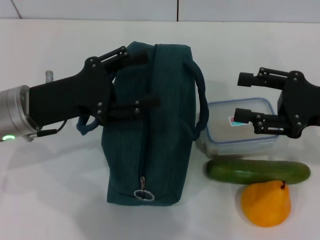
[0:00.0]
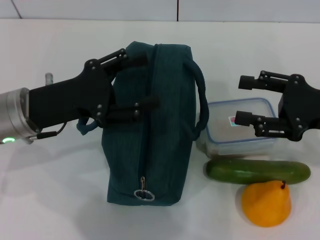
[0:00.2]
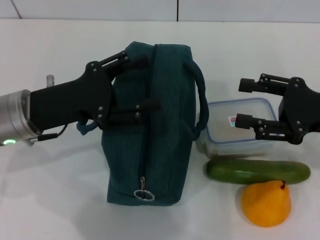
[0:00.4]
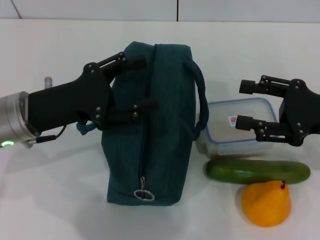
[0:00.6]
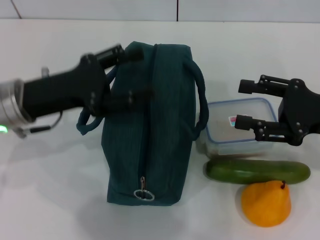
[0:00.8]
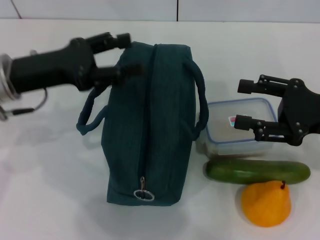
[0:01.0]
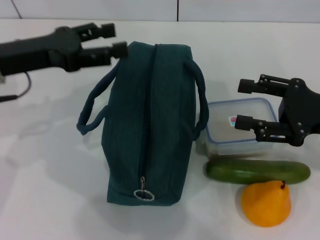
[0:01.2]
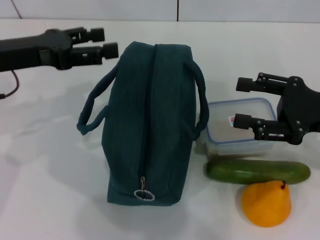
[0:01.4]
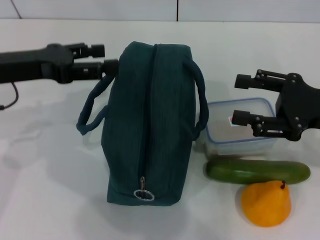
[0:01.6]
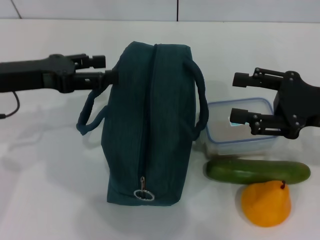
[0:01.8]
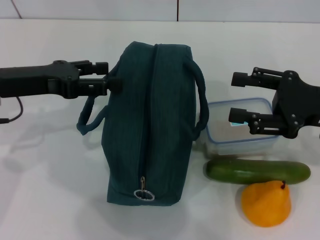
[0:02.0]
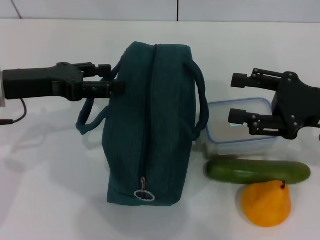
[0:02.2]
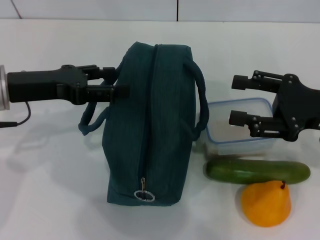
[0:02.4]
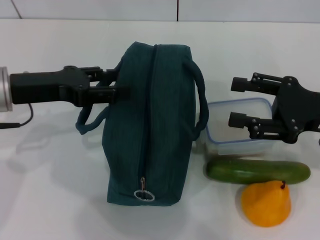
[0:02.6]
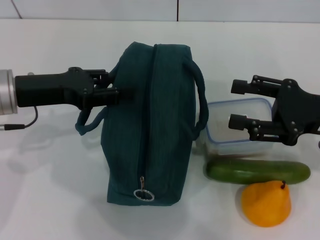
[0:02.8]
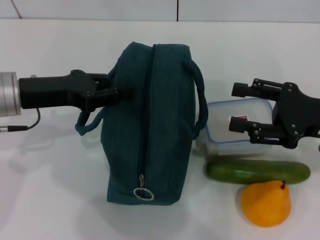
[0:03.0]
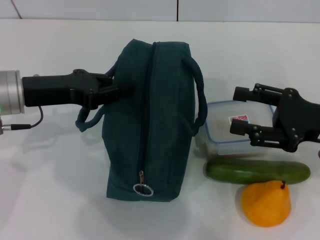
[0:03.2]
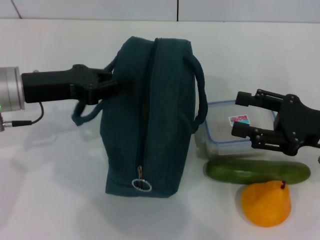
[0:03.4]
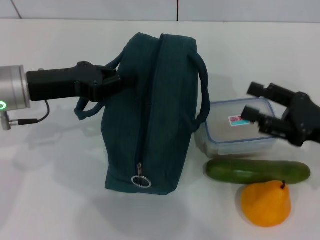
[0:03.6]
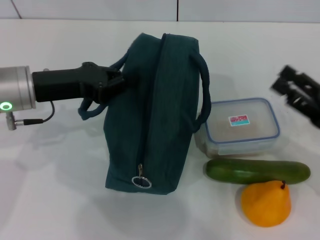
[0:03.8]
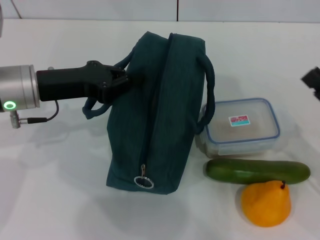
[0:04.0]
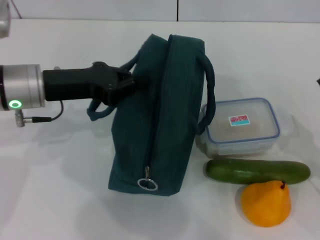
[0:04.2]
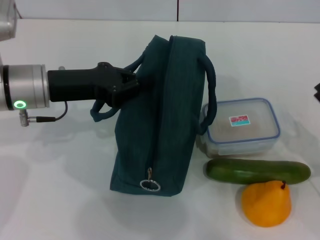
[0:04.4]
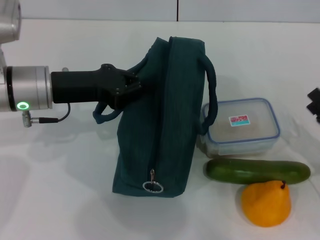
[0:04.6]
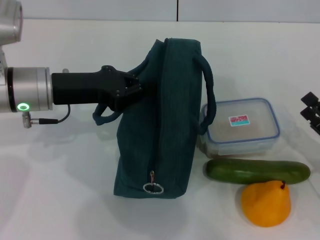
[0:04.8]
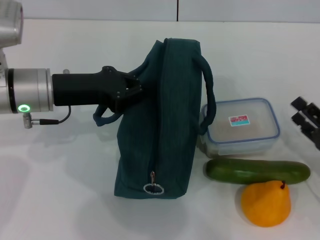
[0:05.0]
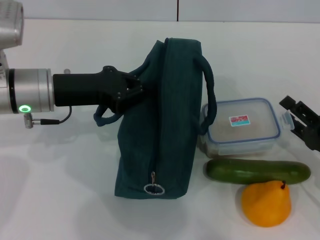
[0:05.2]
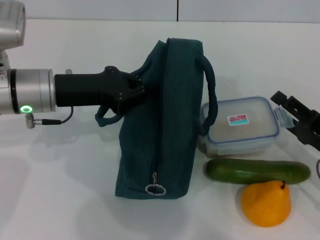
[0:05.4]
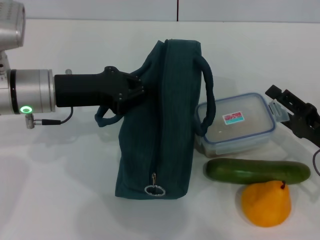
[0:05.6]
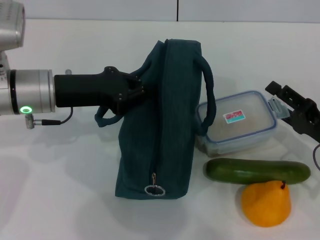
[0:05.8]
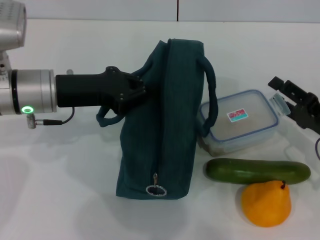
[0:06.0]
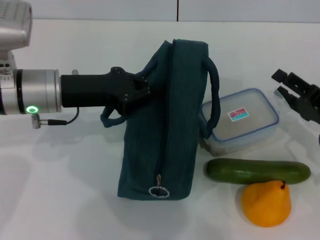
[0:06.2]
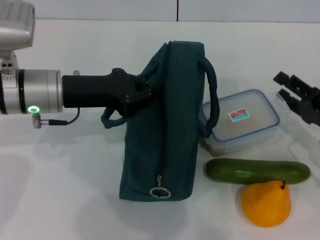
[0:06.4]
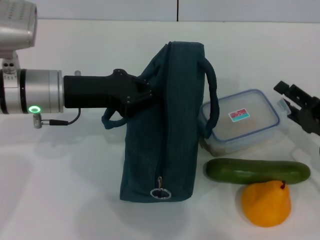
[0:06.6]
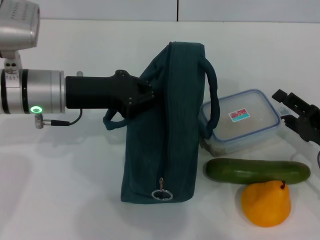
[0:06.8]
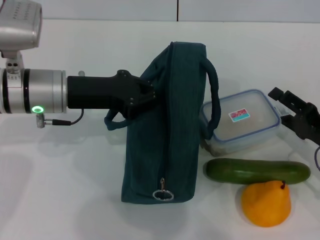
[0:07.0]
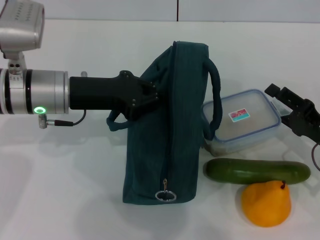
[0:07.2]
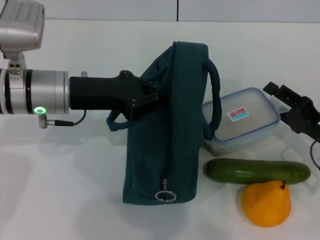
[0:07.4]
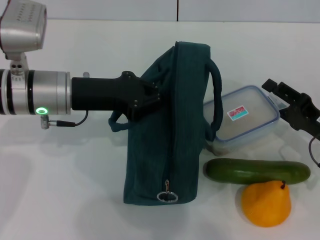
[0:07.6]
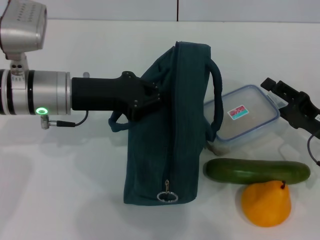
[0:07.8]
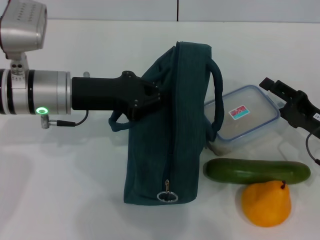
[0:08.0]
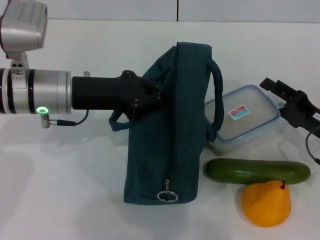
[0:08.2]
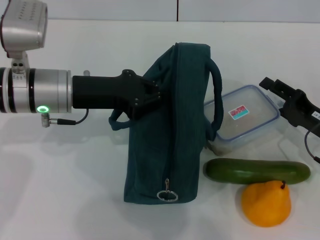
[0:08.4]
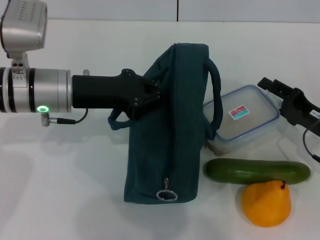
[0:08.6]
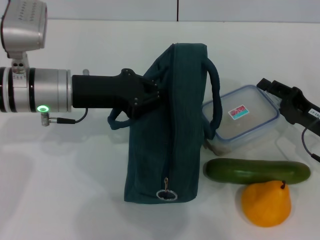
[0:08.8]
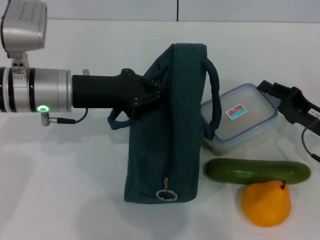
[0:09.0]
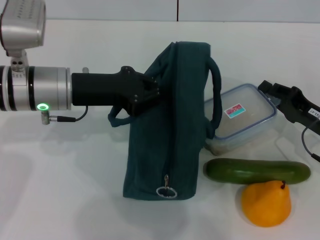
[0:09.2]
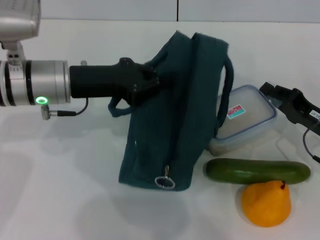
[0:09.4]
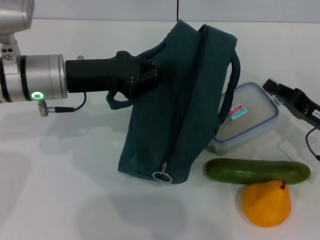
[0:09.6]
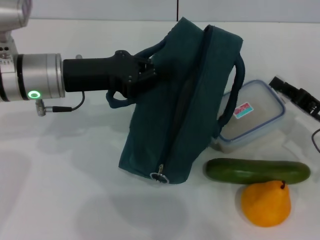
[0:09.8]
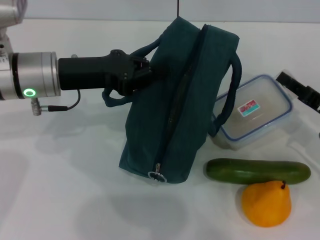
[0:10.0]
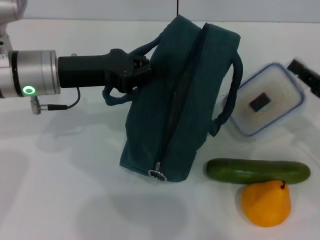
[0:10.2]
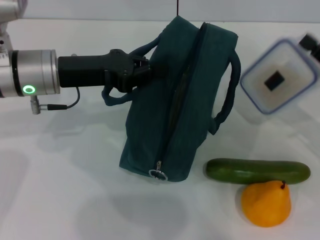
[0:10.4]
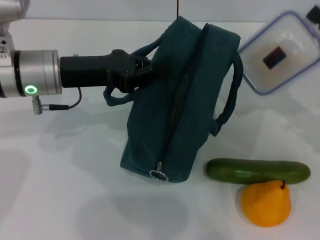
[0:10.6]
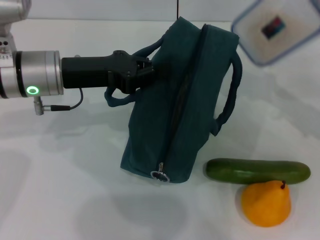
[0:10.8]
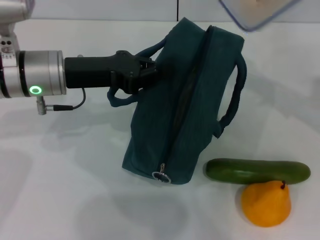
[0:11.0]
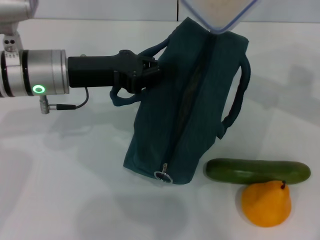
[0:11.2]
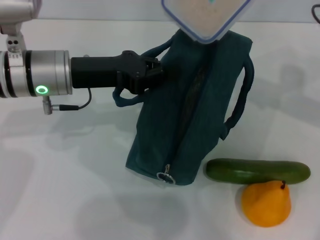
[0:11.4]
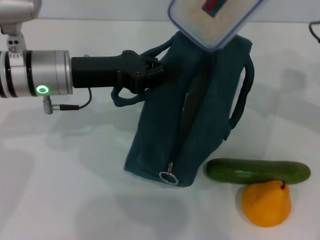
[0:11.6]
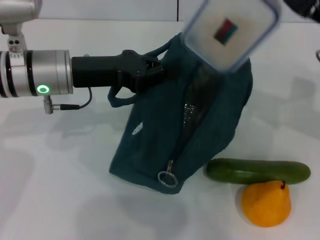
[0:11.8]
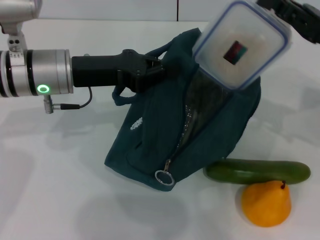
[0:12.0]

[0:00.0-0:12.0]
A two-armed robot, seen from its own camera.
Step, 0:00.0 to 0:04.6: Hold the lunch bag with your left hand.
Step, 0:04.8 to 0:09.8: Pick up the lunch box with your right hand.
0:00.0 to 0:01.6: The left gripper is displaced to the left by approximately 5 cm.
0:01.6 to 0:03.0: The grippers stay close to where they were, moving slightly.
0:03.0 to 0:04.4: The left gripper closes. The right gripper is displaced downward, backward and to the right by about 10 cm.
0:04.4 to 0:06.0: The right gripper travels forward by some 5 cm.
0:06.0 to 0:09.0: The grippers make only small movements.
0:09.0 to 0:10.4: The right gripper goes about 5 cm upward, and closes up.
0:10.4 to 0:12.0: The right gripper moves upward, roughly 5 cm.

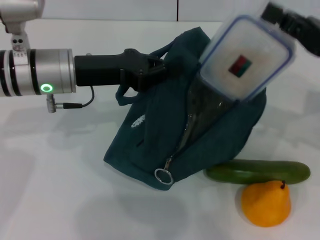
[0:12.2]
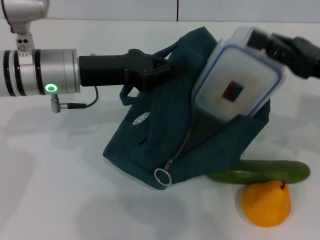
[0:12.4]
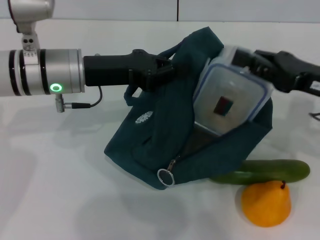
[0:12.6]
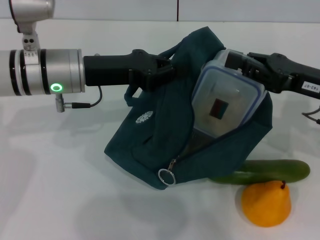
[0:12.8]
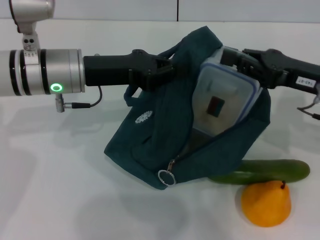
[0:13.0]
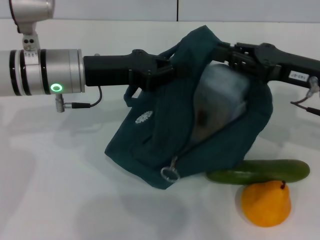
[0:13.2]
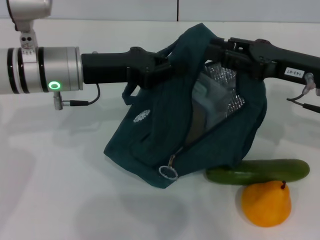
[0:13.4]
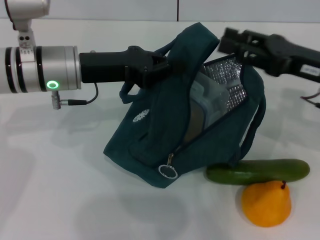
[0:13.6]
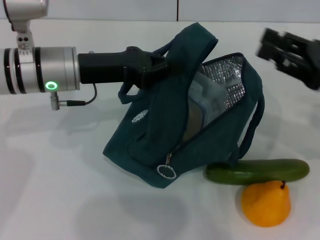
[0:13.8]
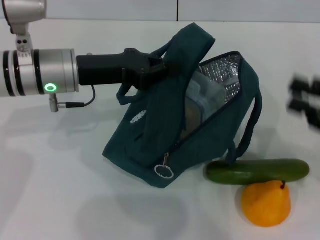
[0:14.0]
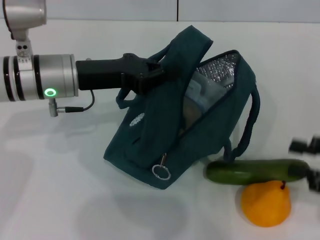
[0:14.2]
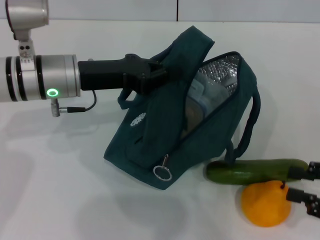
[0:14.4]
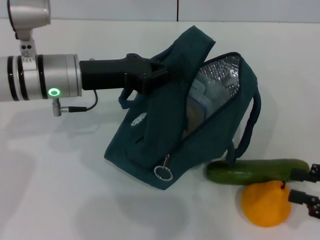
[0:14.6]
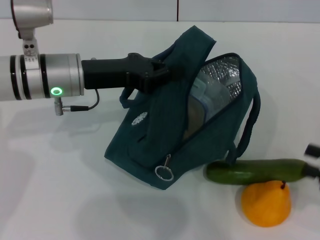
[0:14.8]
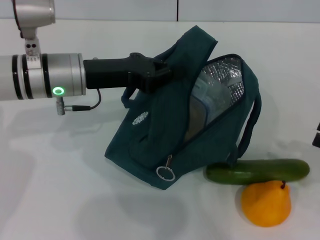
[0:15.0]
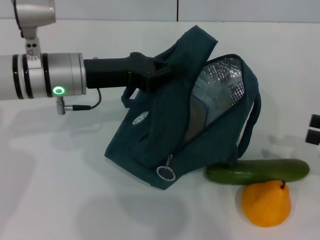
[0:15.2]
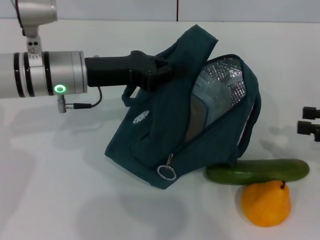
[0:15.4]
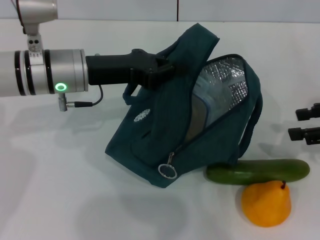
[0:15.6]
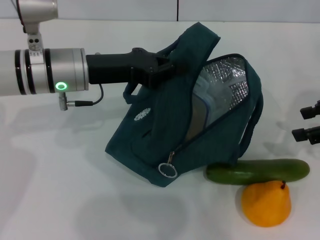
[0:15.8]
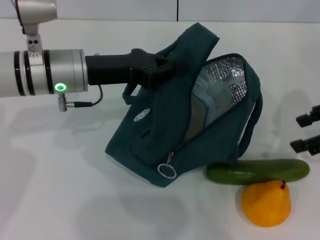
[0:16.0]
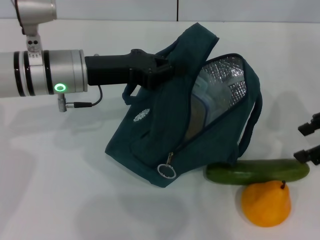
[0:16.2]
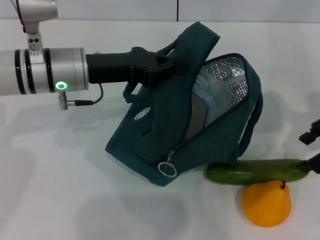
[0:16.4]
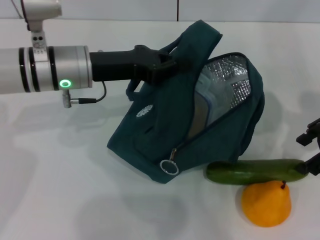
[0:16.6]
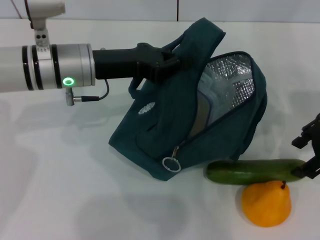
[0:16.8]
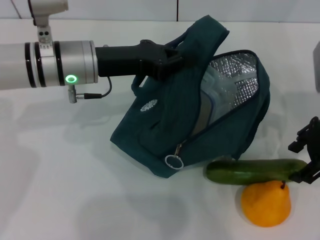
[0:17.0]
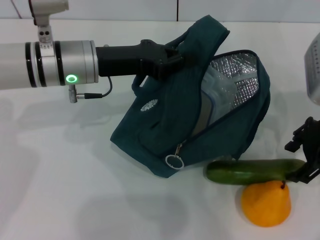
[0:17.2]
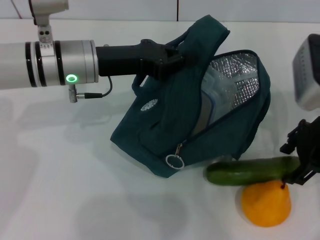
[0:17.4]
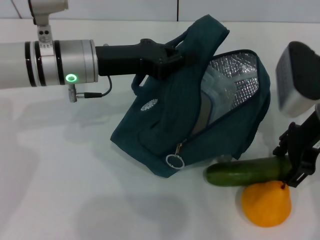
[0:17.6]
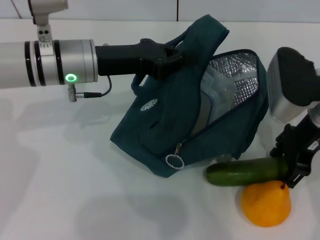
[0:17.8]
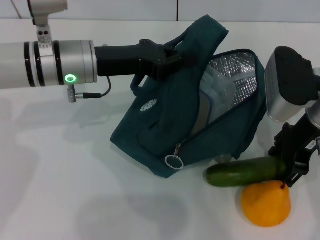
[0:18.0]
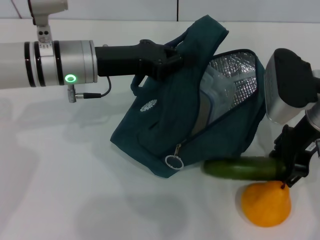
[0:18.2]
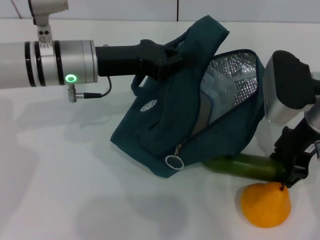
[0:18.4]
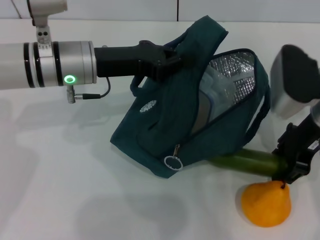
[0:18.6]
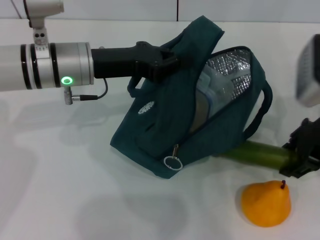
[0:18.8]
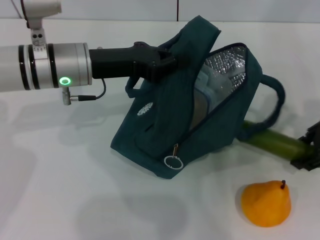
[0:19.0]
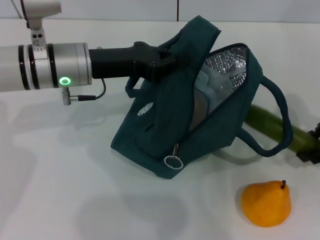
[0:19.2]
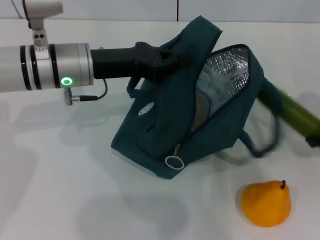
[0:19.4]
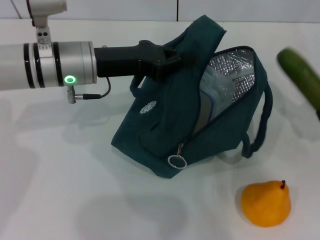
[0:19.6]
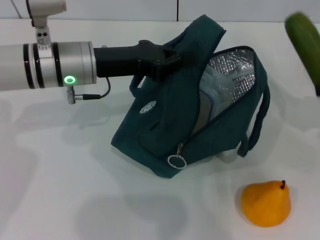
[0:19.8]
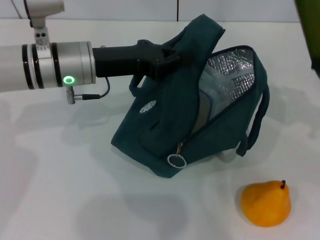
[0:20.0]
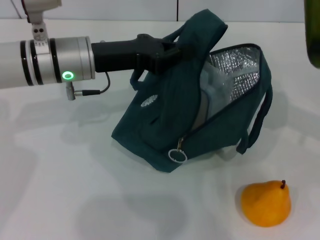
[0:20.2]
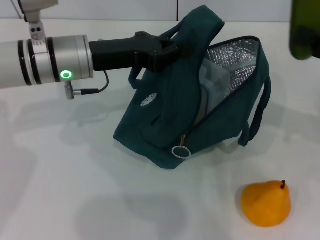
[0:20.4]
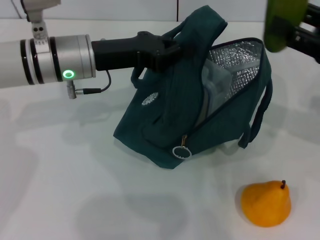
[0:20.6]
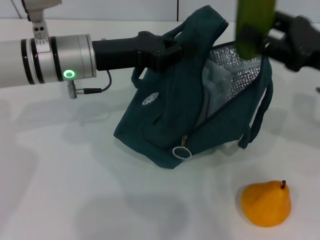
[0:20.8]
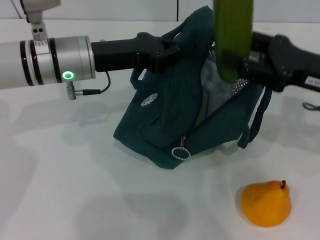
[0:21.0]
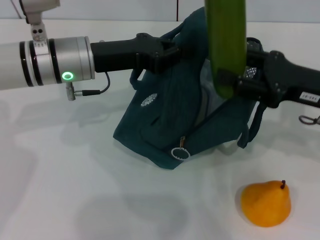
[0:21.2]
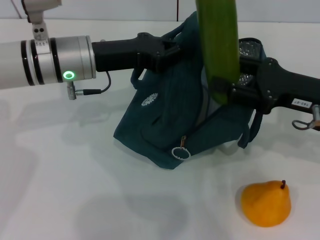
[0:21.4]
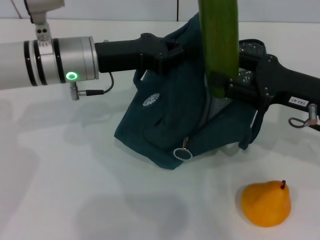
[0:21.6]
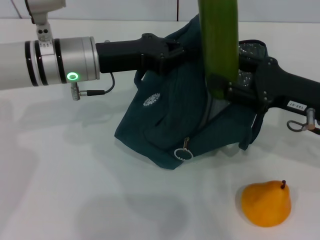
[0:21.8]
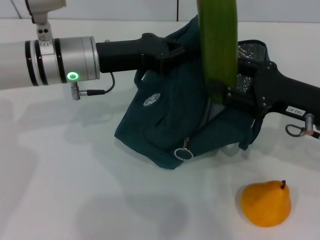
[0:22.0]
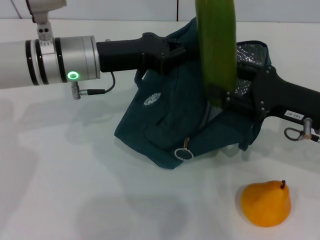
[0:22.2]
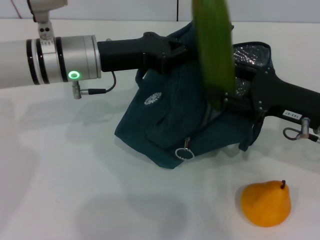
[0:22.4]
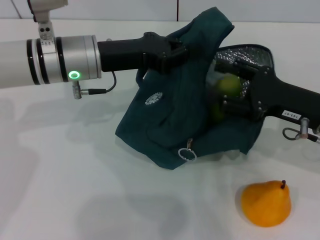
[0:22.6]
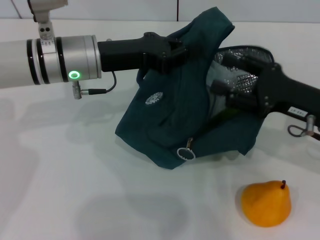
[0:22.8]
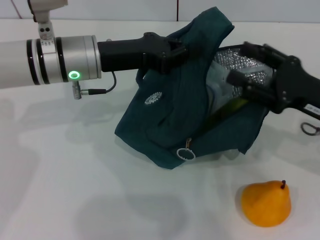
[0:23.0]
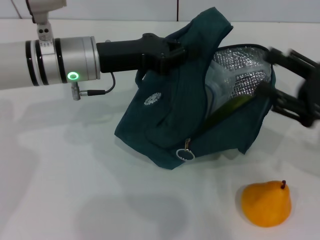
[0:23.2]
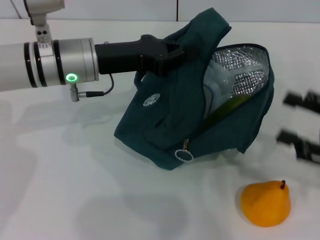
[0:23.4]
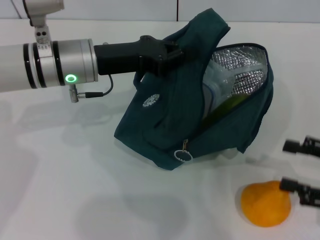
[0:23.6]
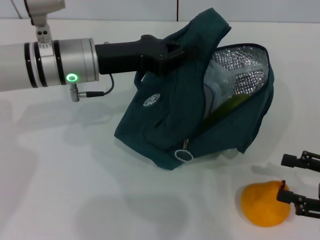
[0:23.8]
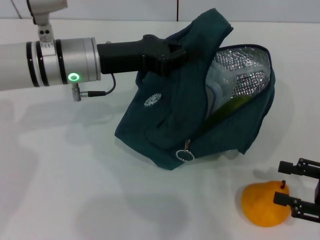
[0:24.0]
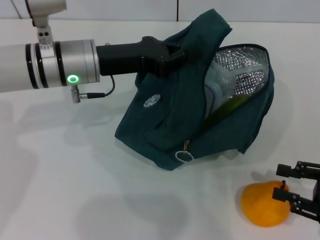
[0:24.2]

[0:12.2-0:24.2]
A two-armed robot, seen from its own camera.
Step, 0:13.8 to 0:18.4: Pick up the cucumber with your right hand.
Step, 0:18.6 to 0:22.8: Put the cucumber into the lunch bag with your right hand.
0:12.2 to 0:13.8: The right gripper opens.
0:13.8 to 0:15.2: The right gripper moves to the right and backward, roughly 10 cm.
0:15.2 to 0:16.6: The right gripper is displaced to the left, forward and upward by approximately 15 cm, and opens up.
0:16.6 to 0:18.2: The right gripper goes some 5 cm to the left.
0:18.2 to 0:19.8: The right gripper moves to the right, approximately 15 cm.
0:19.8 to 0:21.2: The right gripper goes some 10 cm to the left.
0:21.2 to 0:22.6: The grippers stay close to where they were, moving slightly.
0:22.6 to 0:24.2: The right gripper shifts approximately 15 cm backward and to the right.
